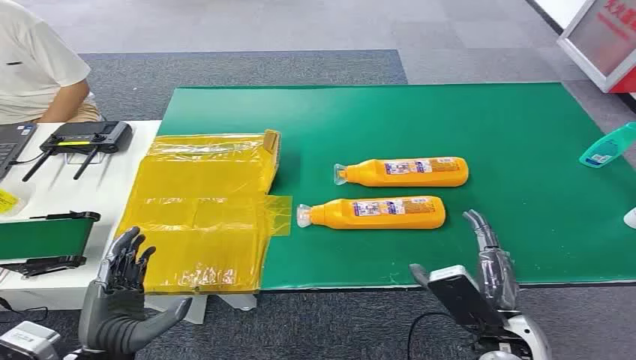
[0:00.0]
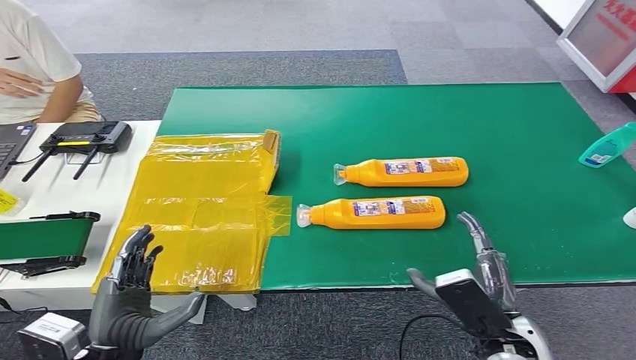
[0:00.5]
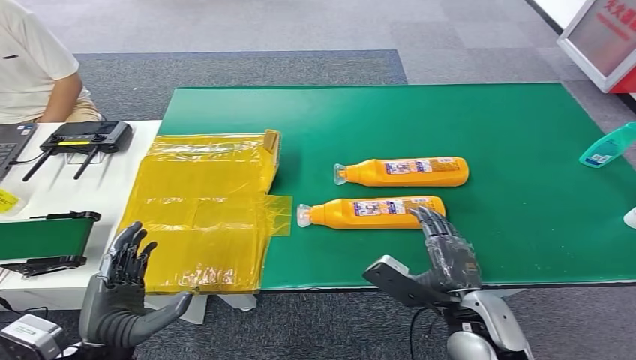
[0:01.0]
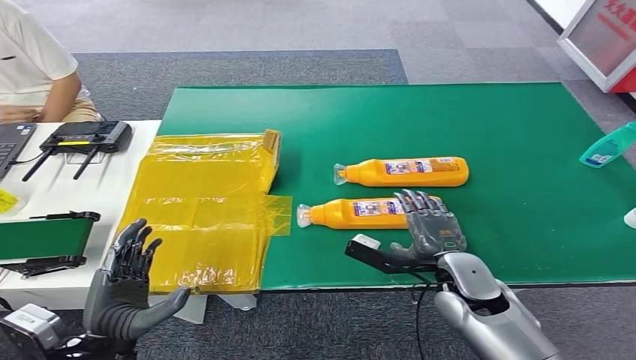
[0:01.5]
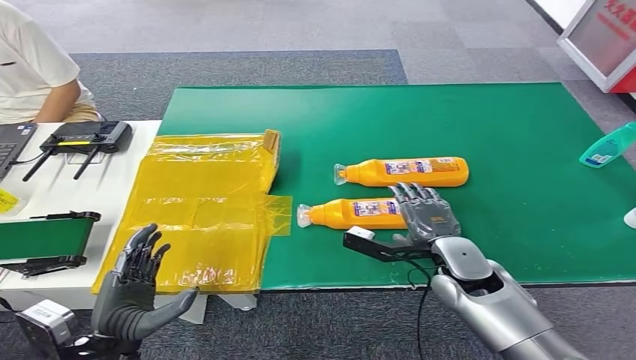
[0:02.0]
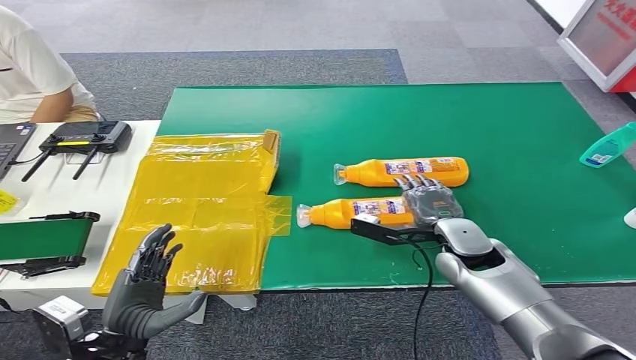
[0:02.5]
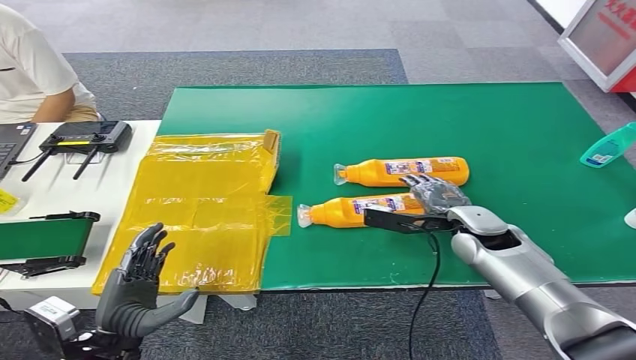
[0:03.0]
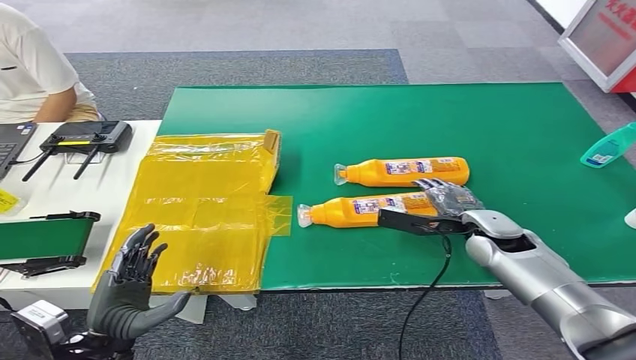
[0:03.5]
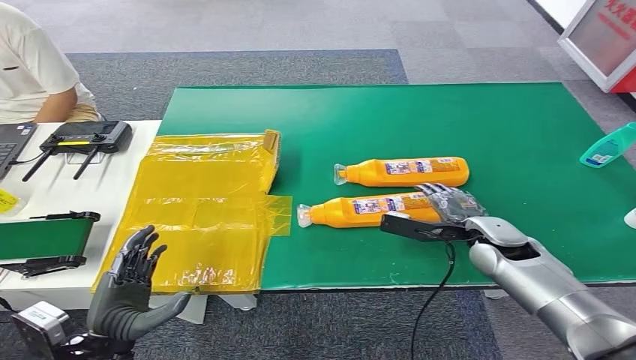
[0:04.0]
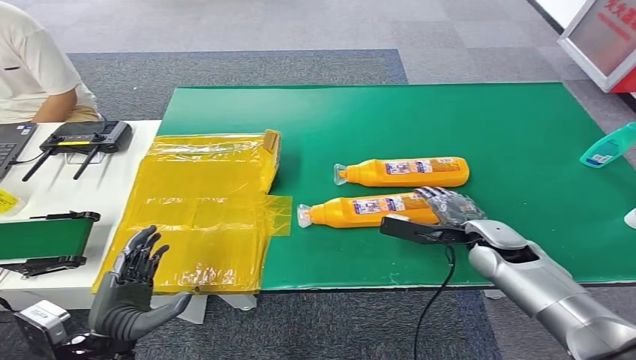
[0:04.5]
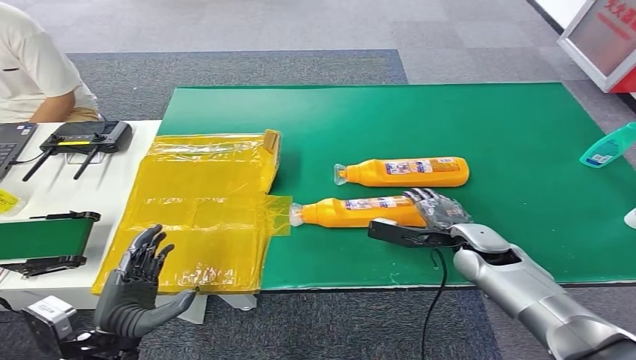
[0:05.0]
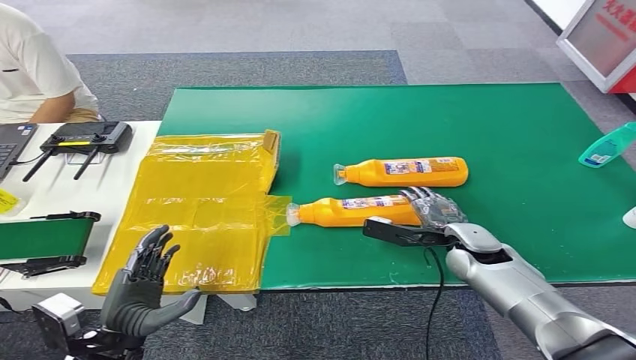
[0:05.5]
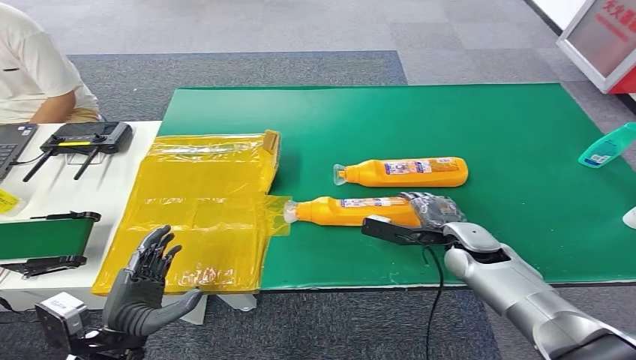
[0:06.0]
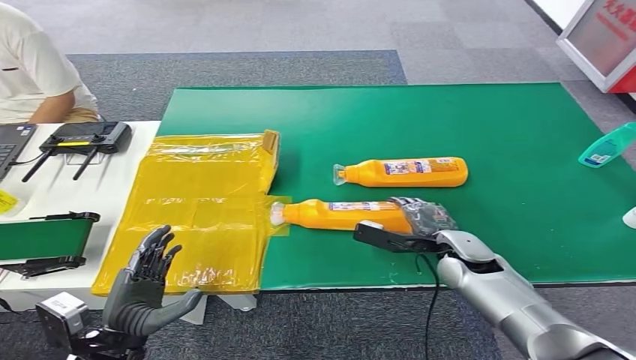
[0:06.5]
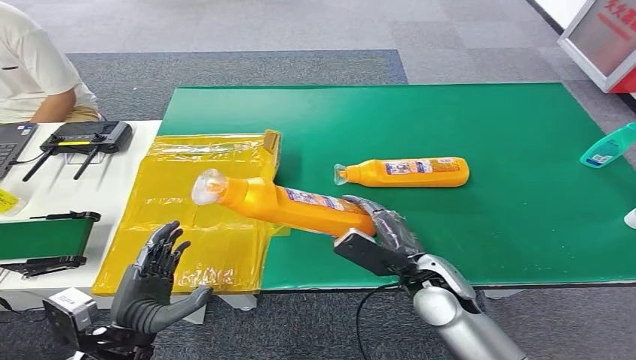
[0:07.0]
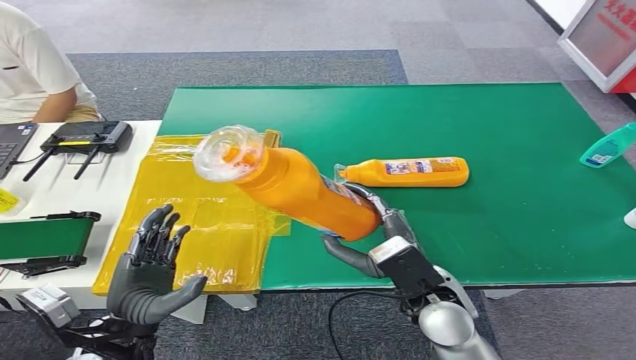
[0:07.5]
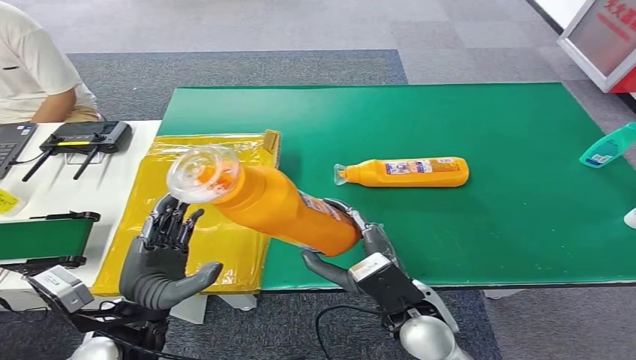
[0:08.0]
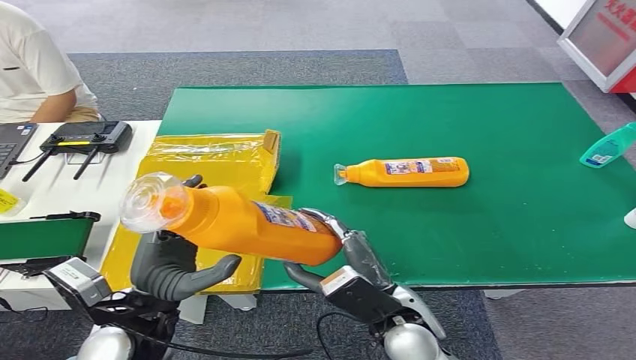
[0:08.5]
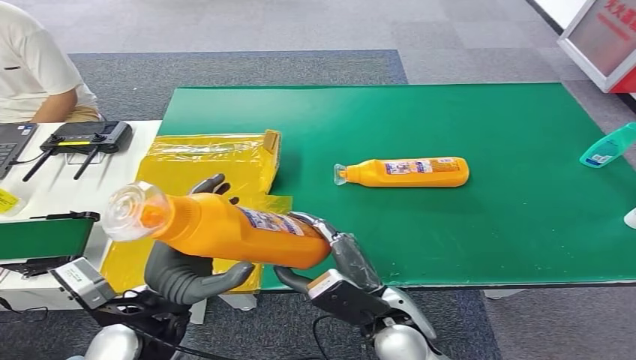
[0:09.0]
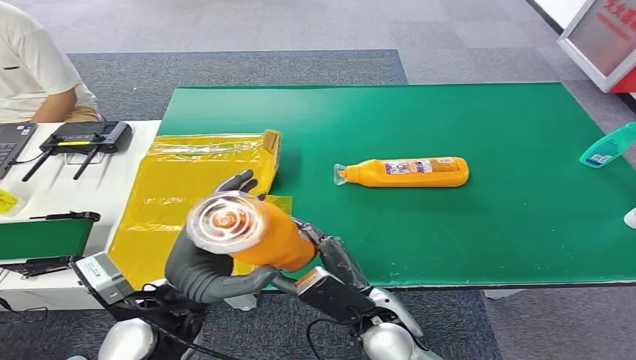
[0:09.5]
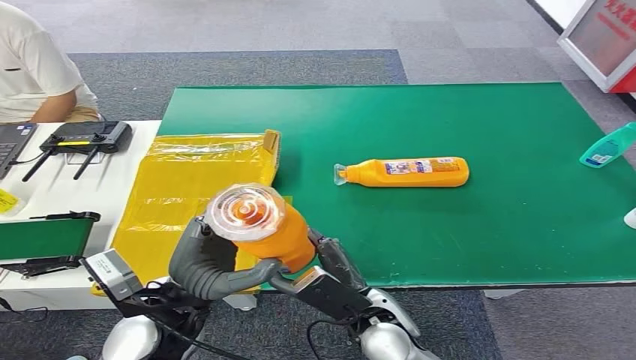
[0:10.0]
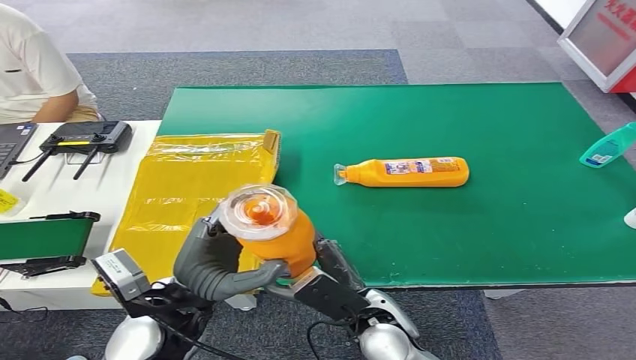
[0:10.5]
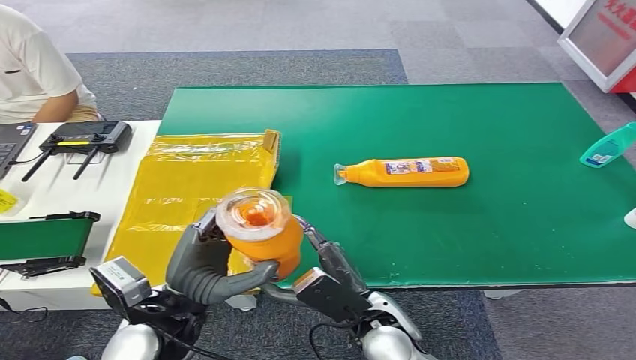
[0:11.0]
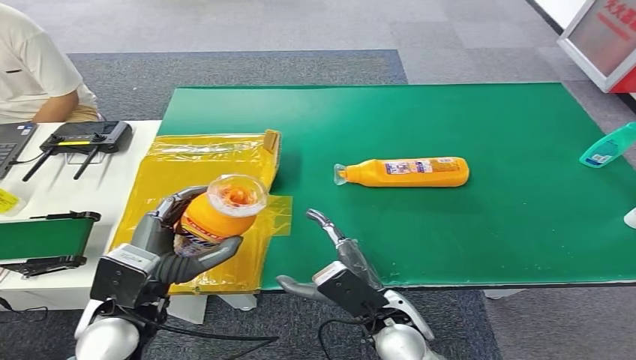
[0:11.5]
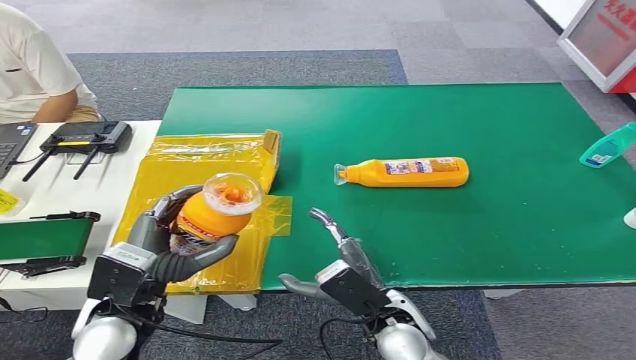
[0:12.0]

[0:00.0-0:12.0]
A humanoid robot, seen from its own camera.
Step, 0:00.0 to 0:07.5: Pick up the bottle from the table.
0:02.0 to 0:04.0: The right hand goes approximately 10 cm to the right and forward.
0:04.0 to 0:06.0: The hands stay close to where they were, moving slightly.
0:06.0 to 0:08.0: The right hand travels backward and to the left by some 20 cm. The left hand travels upward by roughly 5 cm.
0:08.0 to 0:10.0: The right hand ends up approximately 5 cm from where it was. The left hand travels to the right by roughly 5 cm.
0:10.0 to 0:12.0: The left hand goes approximately 5 cm to the left.

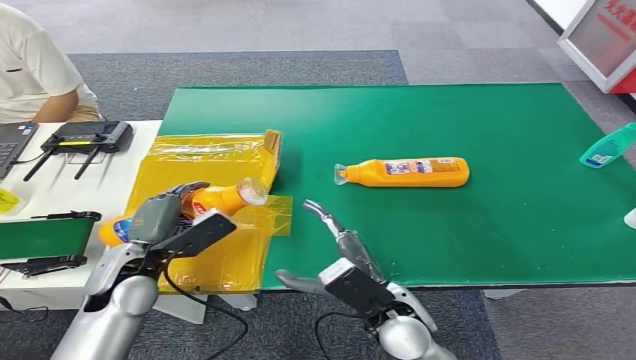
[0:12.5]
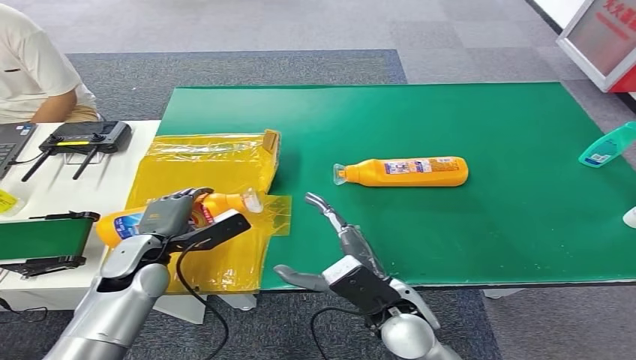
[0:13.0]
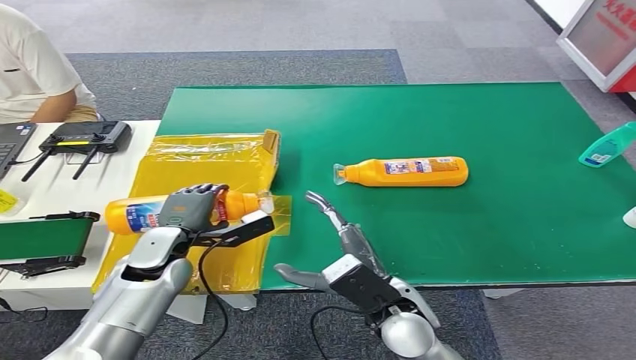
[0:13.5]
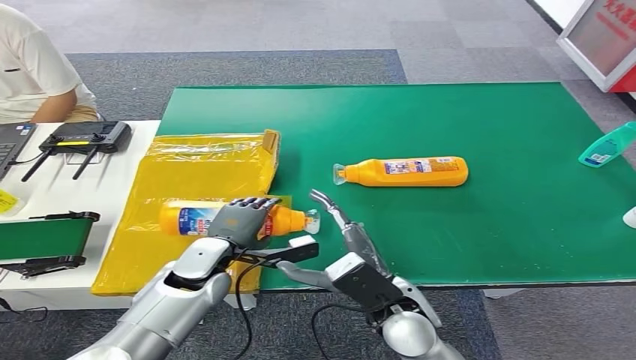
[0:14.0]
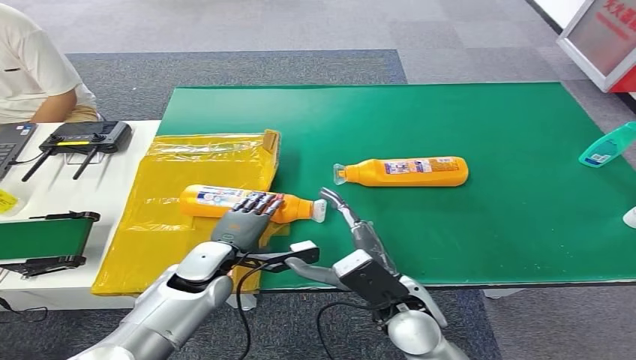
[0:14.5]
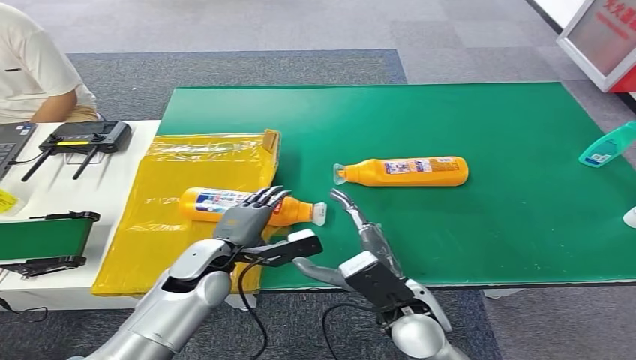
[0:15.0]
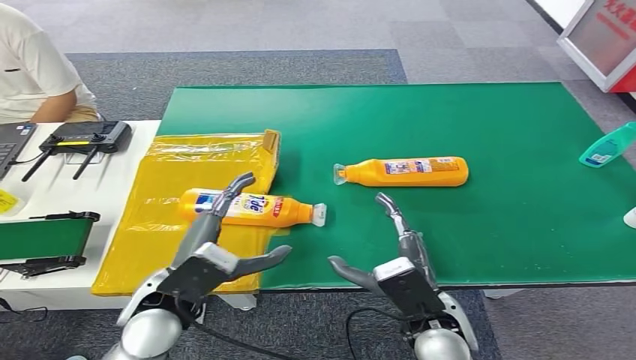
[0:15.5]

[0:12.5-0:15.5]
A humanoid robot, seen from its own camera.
Step, 0:12.5 to 0:15.5: Turn the bottle to the front side.
0:12.5 to 0:14.0: The left hand is displaced to the right and downward by some 10 cm.
0:14.0 to 0:15.5: The right hand moves some 5 cm. Meanwhile the left hand heads backward and upward, covering some 10 cm.

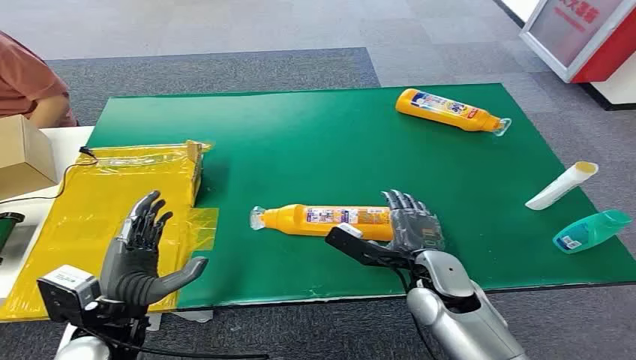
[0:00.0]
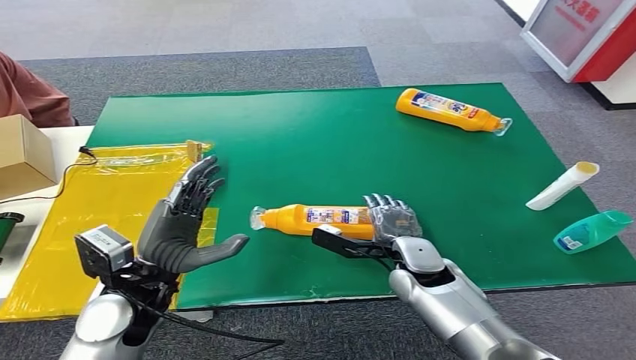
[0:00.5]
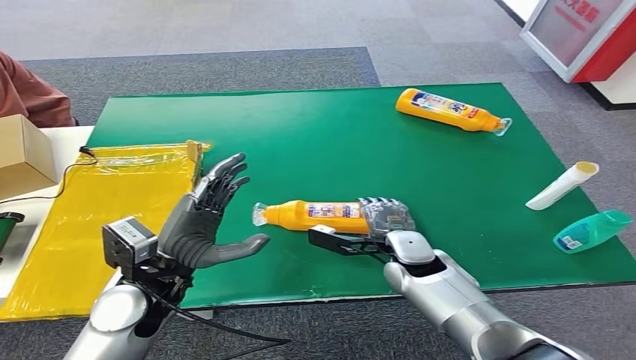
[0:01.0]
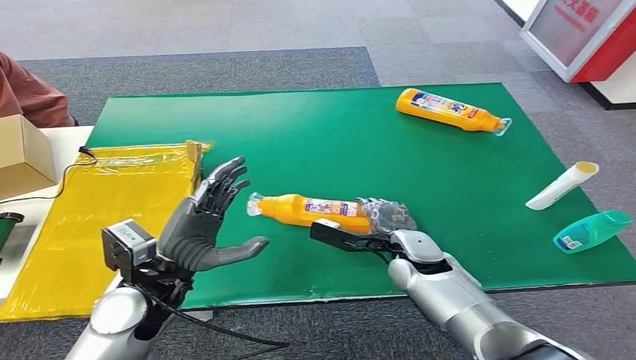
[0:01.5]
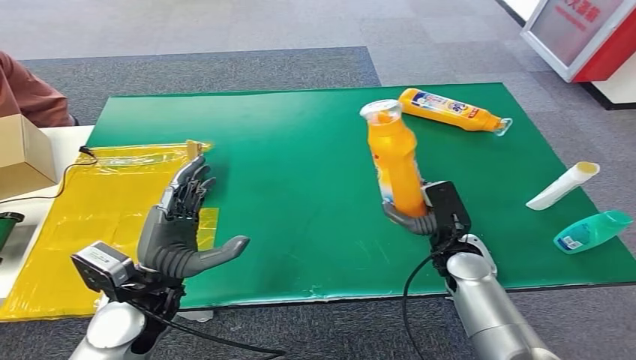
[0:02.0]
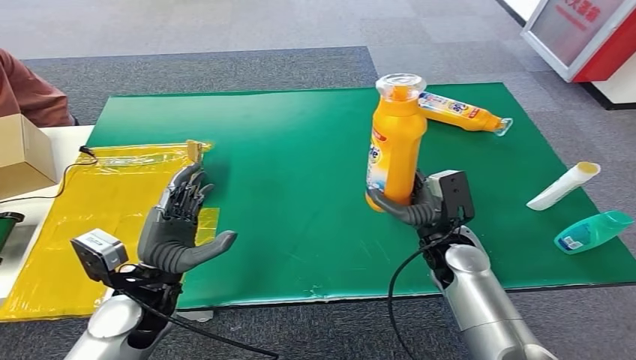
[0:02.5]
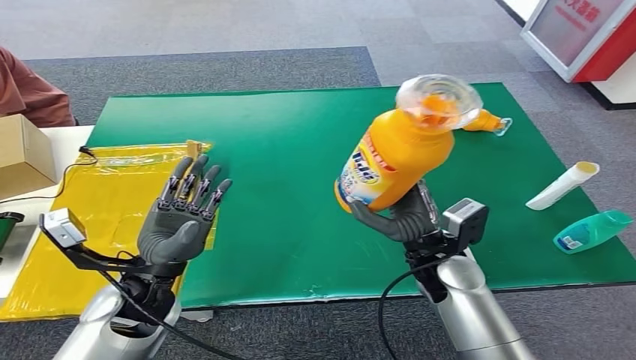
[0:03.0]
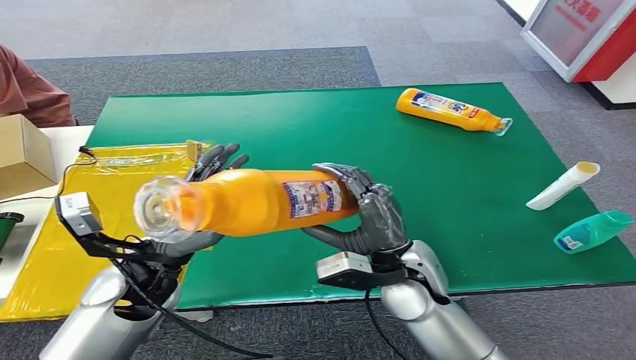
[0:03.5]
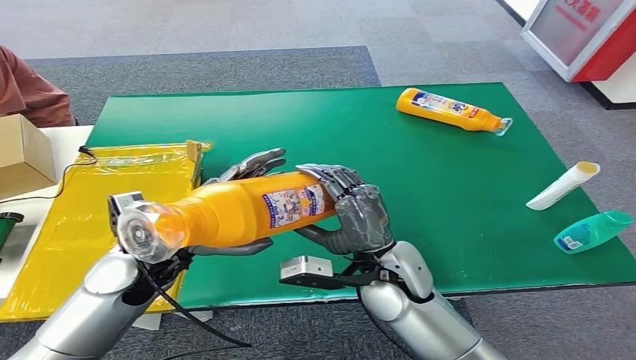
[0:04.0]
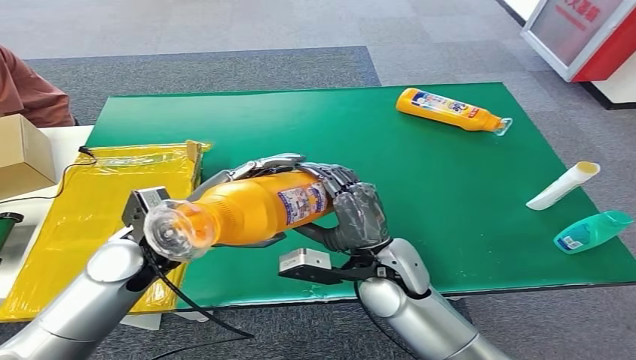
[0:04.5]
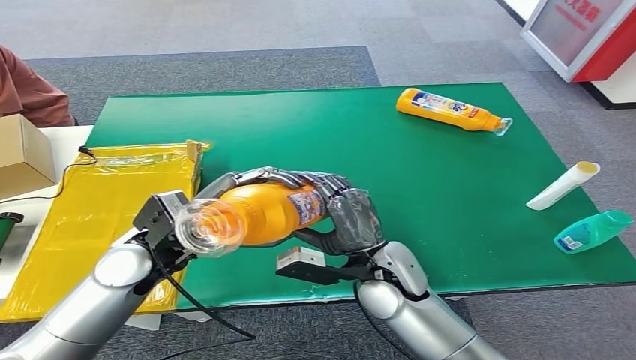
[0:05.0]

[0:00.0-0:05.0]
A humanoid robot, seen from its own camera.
Step, 0:00.0 to 0:02.0: Pick up the bottle from the table.
